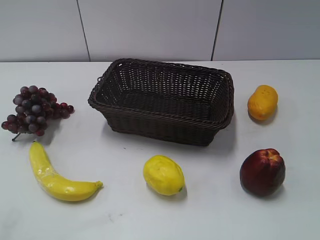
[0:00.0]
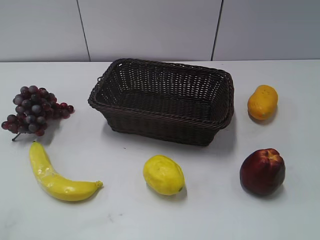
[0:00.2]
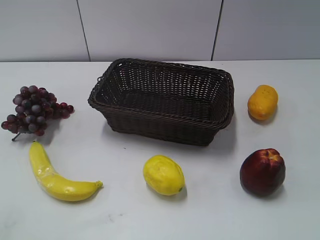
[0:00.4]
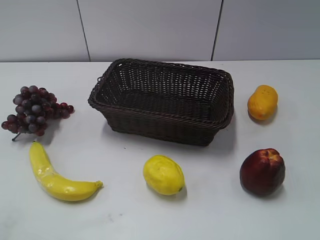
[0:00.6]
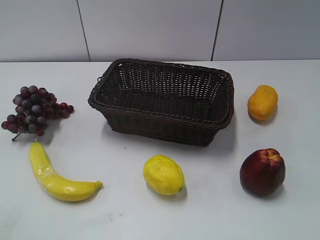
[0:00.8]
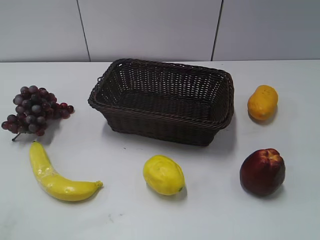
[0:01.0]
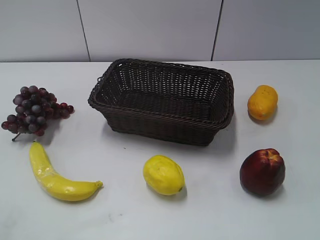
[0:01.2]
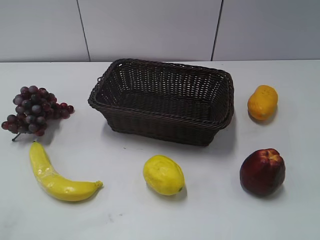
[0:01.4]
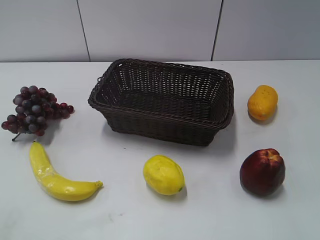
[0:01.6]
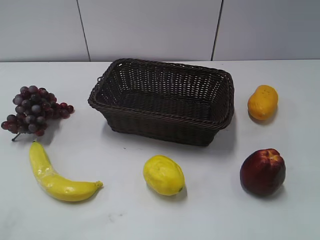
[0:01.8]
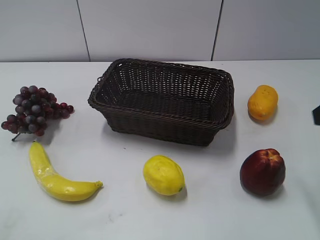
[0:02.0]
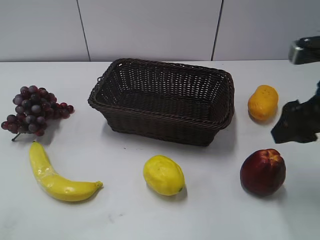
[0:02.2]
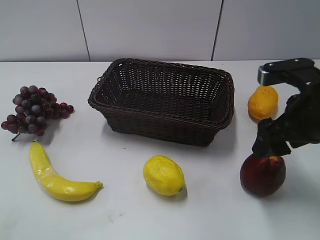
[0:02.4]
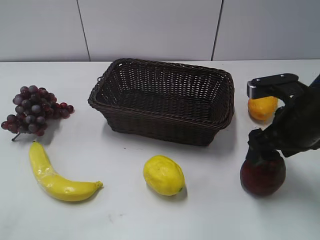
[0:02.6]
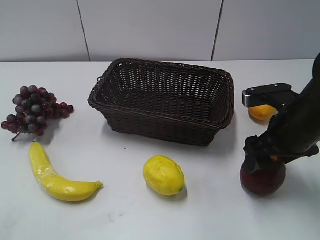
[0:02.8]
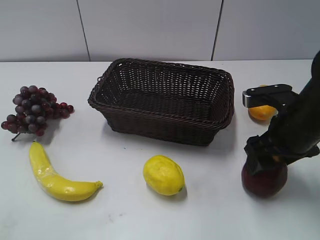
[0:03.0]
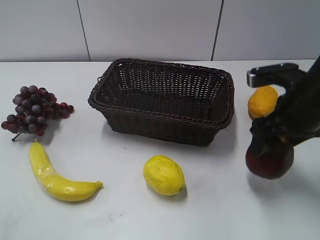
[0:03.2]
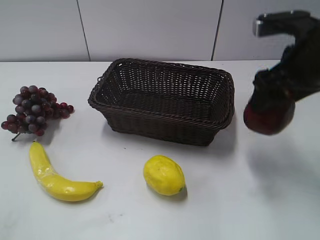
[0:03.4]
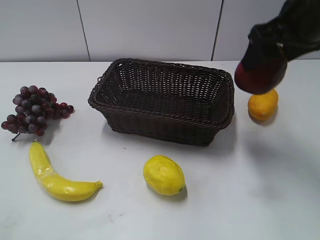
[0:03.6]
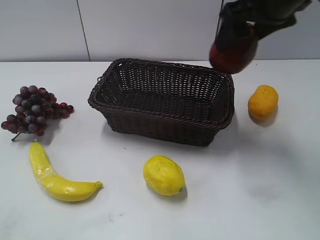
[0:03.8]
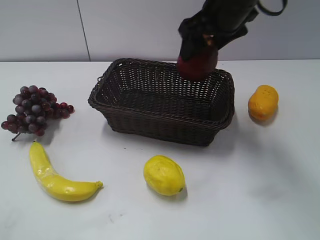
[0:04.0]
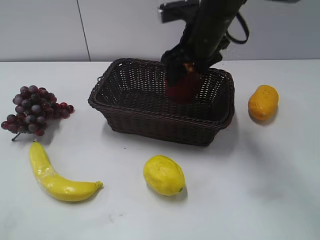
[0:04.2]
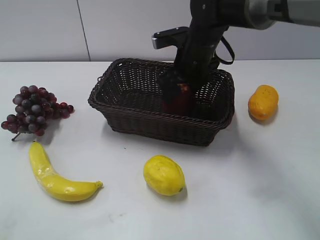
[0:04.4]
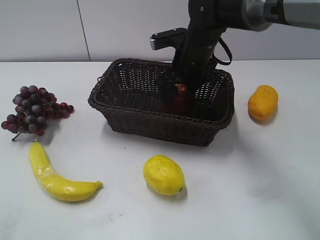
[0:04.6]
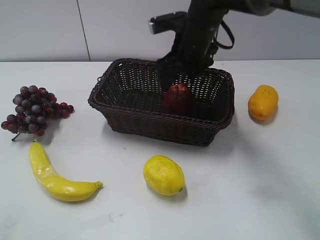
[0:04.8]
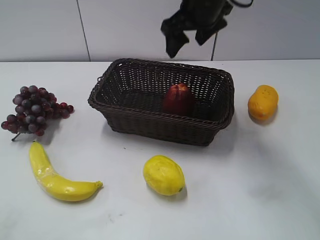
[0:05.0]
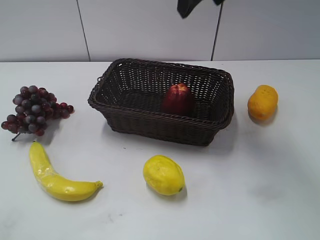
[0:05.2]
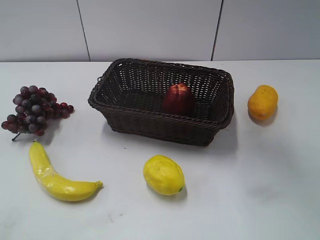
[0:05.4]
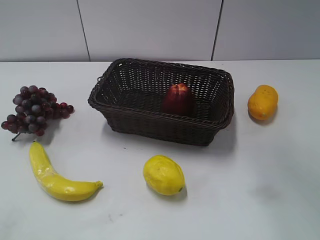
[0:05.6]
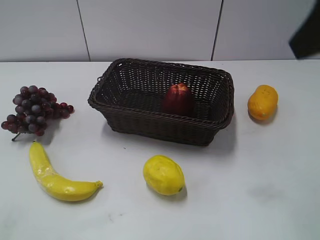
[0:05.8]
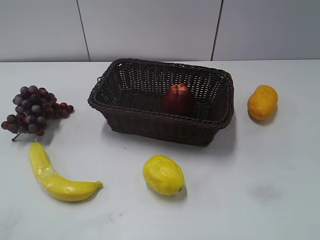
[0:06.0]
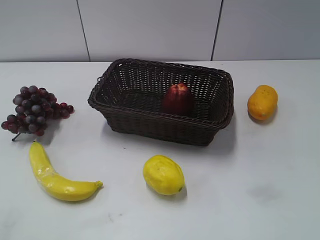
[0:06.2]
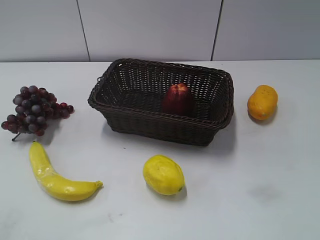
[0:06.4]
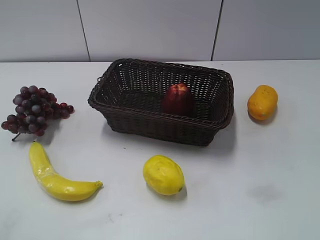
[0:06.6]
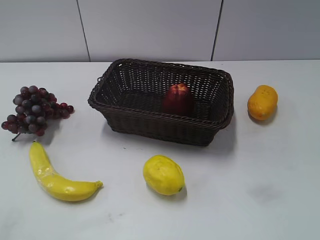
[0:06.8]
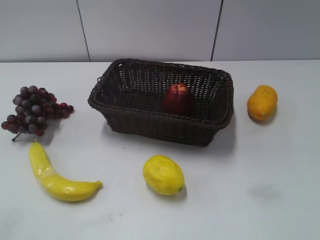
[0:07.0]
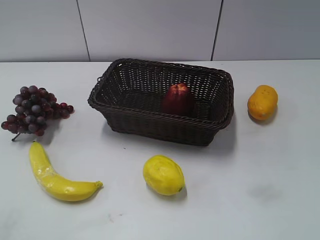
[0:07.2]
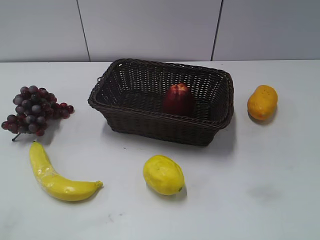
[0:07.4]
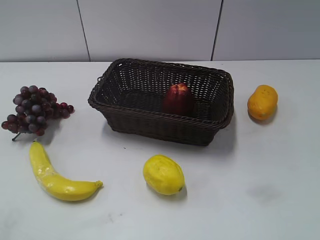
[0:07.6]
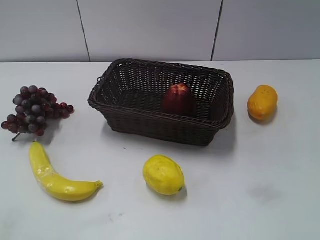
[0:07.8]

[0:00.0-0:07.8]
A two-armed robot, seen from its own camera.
Step, 0:02.0 to 0:02.8: Grasp the apple with right gripper.
Step, 0:03.0 to 0:04.6: Place the apple in the basket with right gripper.
0:01.6 to 0:03.2: The right gripper goes some 25 cm forward, downward and to the left.
0:03.2 to 0:04.6: The right gripper moves forward and to the left, roughly 20 cm.
0:04.6 to 0:06.2: The right gripper travels backward, to the right and upward by some 40 cm.

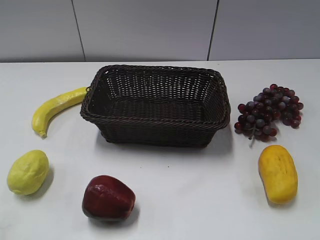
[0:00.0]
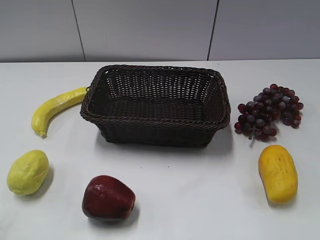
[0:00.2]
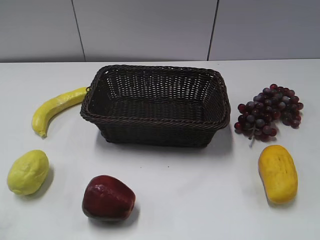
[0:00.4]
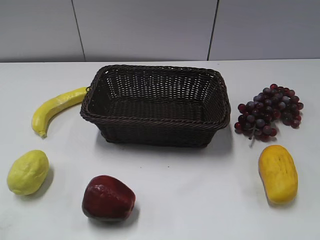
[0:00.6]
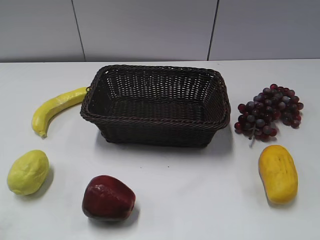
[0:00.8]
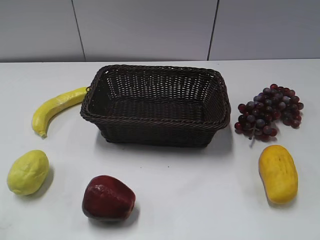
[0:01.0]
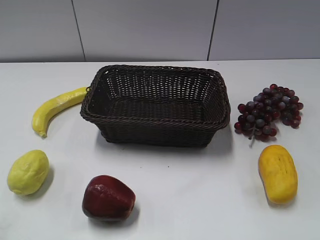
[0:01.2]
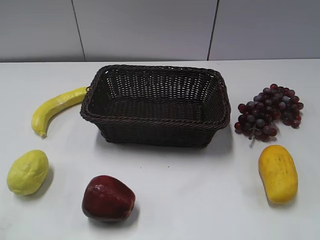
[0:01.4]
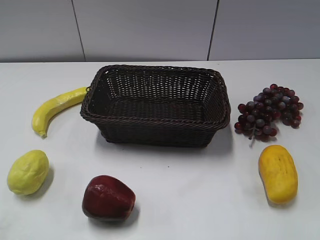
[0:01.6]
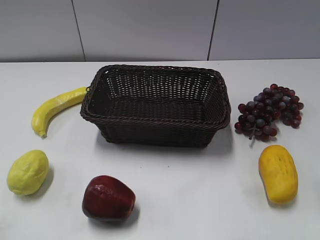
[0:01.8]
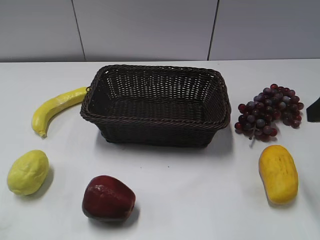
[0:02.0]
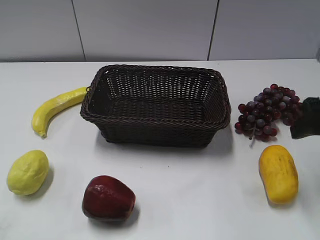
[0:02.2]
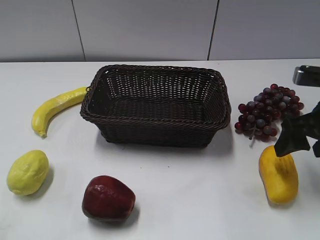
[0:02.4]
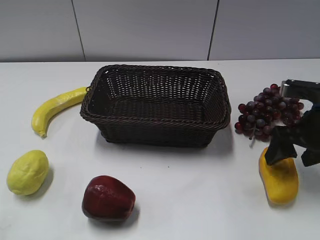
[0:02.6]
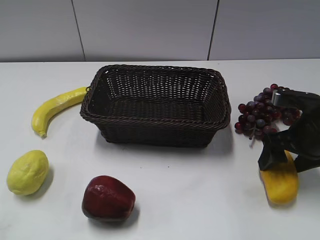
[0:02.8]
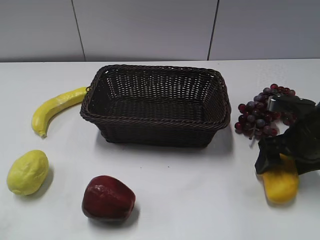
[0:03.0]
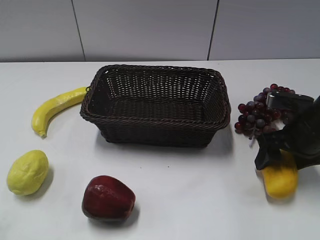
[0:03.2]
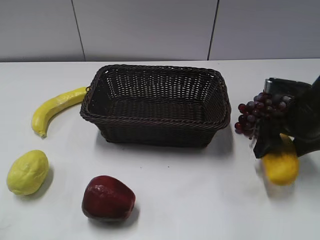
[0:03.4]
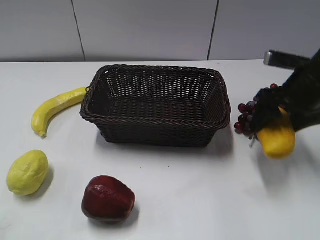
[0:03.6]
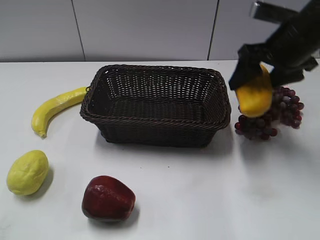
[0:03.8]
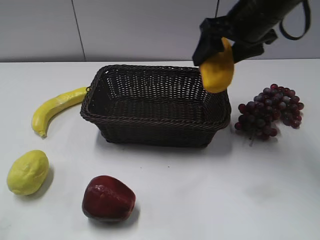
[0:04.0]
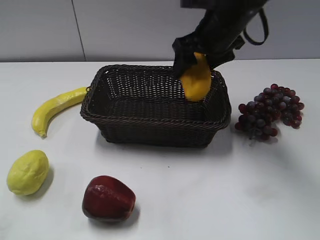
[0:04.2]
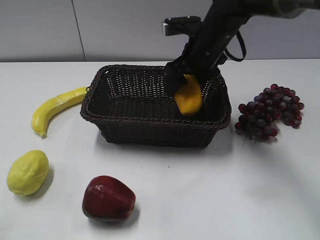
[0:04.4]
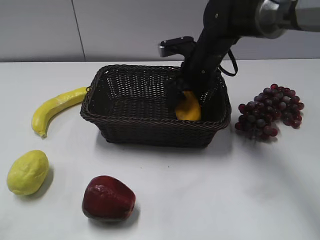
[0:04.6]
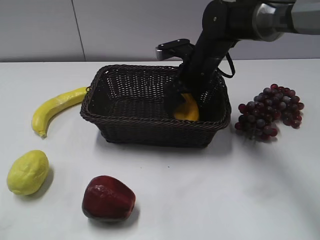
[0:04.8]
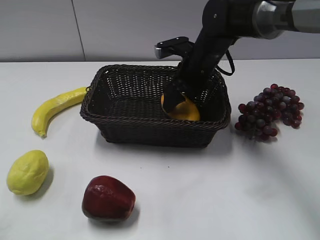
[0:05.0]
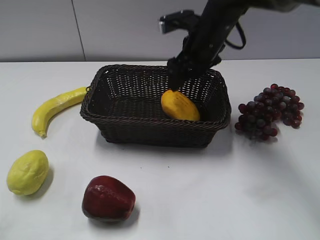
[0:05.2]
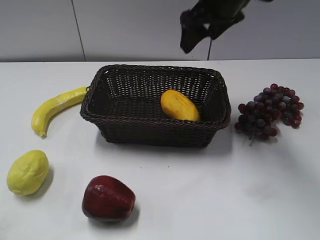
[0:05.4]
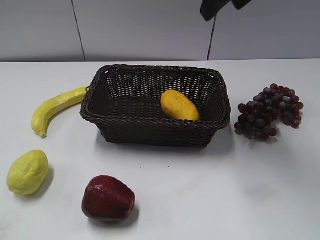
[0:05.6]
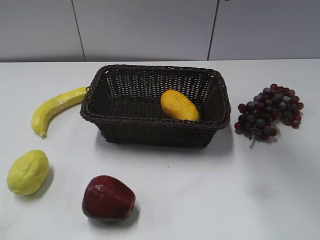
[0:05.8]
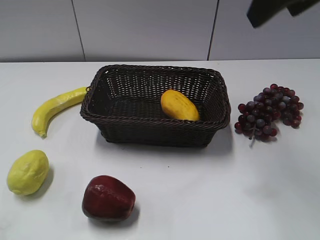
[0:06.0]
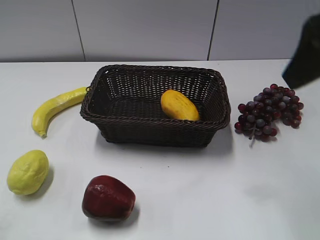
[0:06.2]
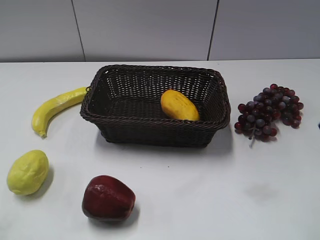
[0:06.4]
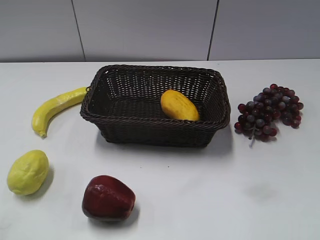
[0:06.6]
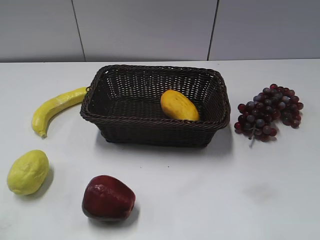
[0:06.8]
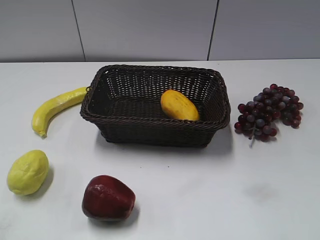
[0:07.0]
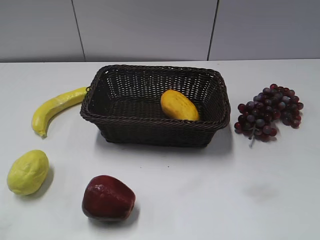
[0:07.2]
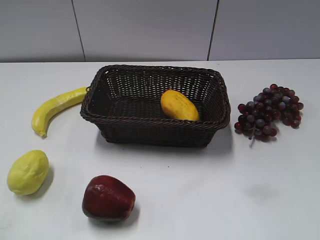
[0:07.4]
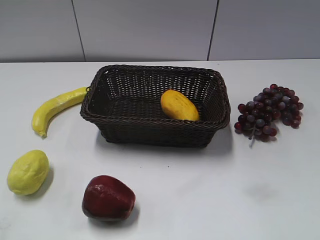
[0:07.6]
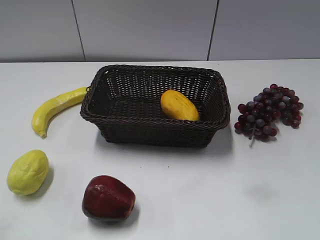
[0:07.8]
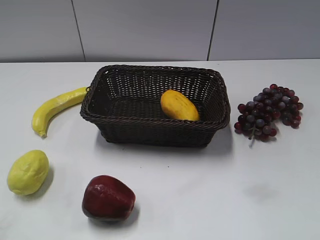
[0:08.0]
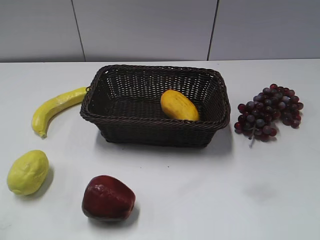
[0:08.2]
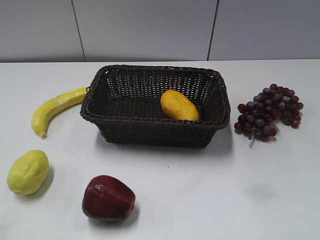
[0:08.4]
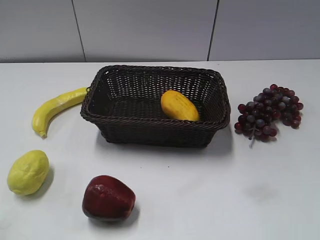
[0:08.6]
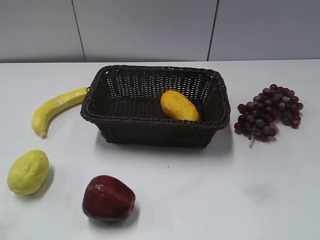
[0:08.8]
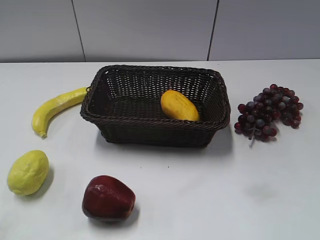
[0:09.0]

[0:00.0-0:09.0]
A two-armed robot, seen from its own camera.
Step, 0:02.0 to 0:03.0: Grasp the mango with right gripper.
Step, 0:03.2 to 0:05.0: Place the mango in the basket with right gripper.
0:01.6 to 0:03.0: The right gripper is displaced downward and forward by approximately 25 cm.
0:03.0 to 0:04.4: The right gripper moves to the left and forward, about 20 cm, and closes up.
0:04.4 to 0:06.0: The right gripper moves upward, backward and to the right, roughly 30 cm, and opens and closes again.
0:06.0 to 0:07.6: The right gripper shifts about 25 cm backward, downward and to the right, and closes up.
